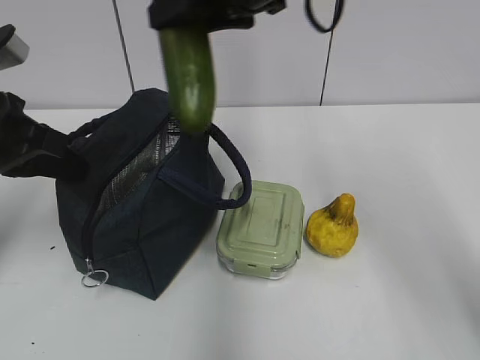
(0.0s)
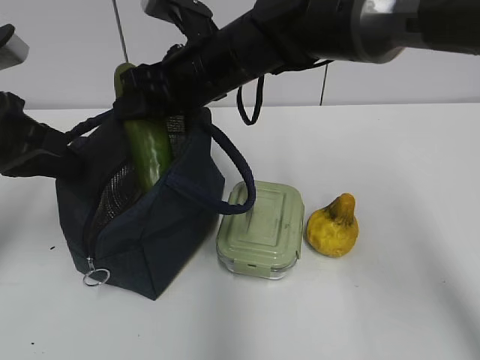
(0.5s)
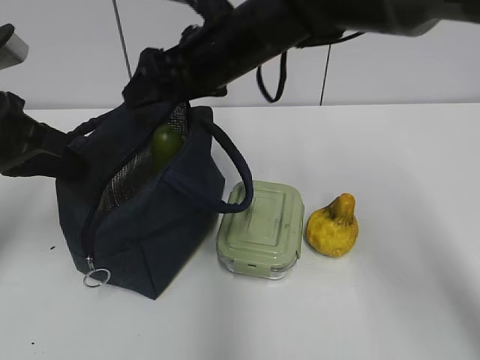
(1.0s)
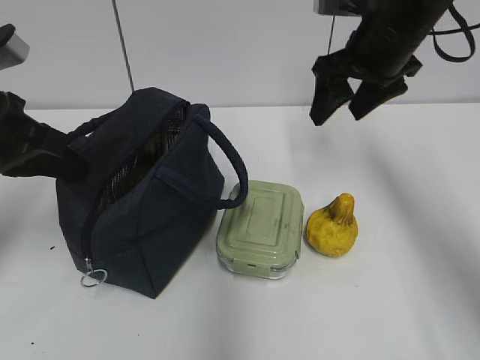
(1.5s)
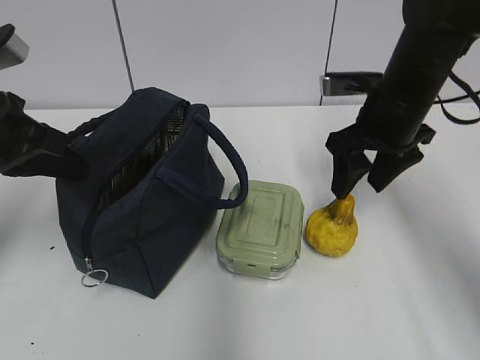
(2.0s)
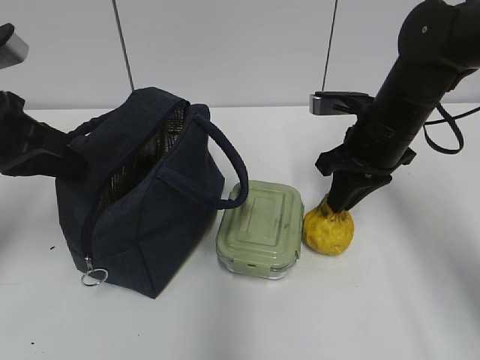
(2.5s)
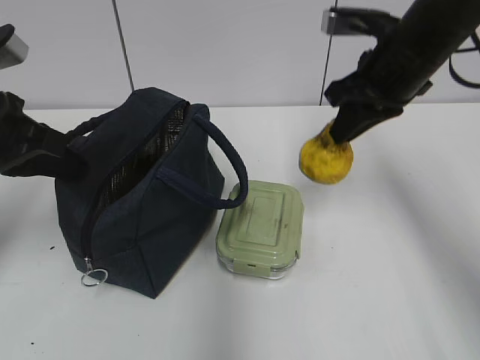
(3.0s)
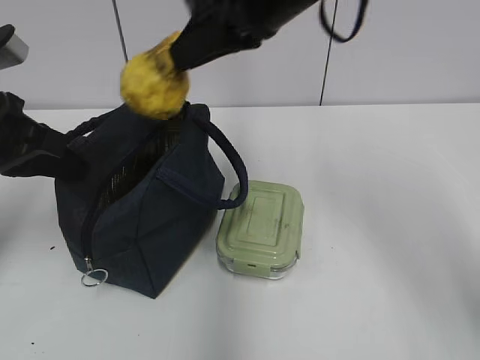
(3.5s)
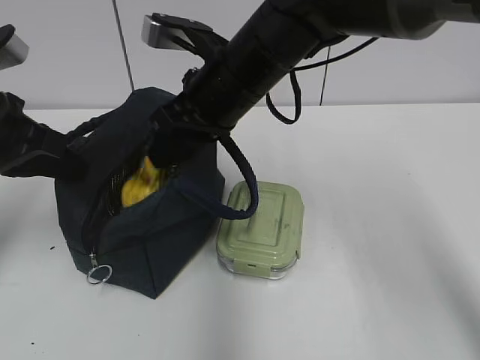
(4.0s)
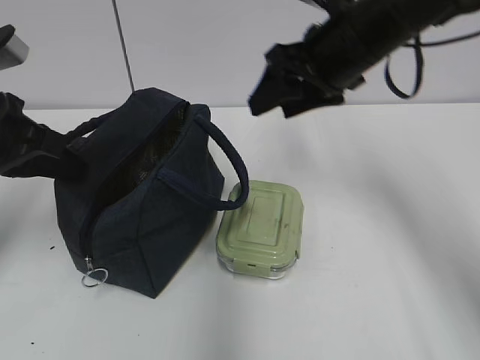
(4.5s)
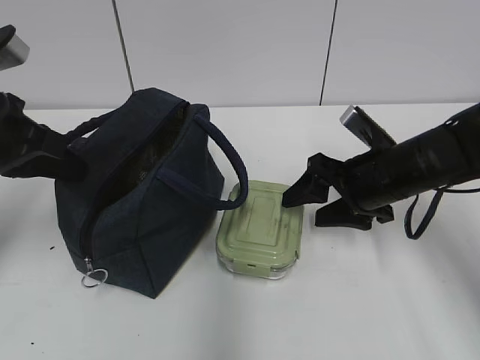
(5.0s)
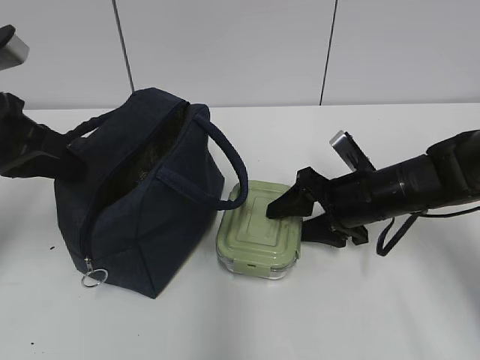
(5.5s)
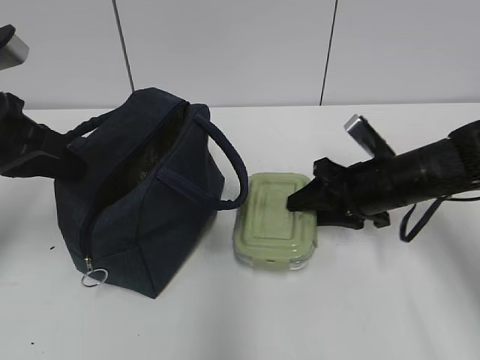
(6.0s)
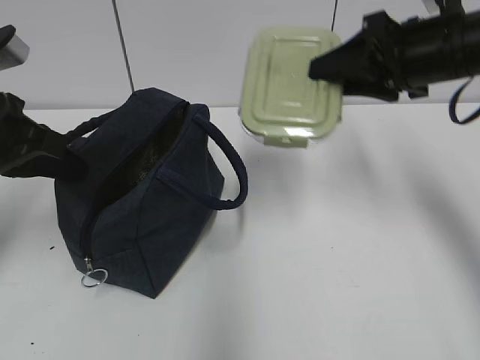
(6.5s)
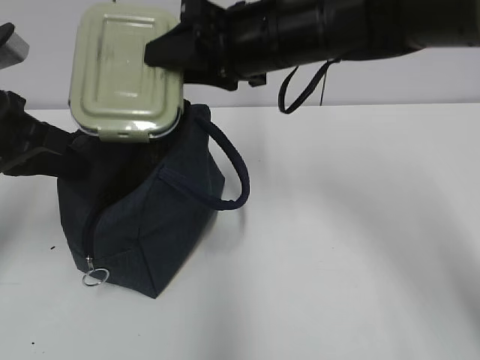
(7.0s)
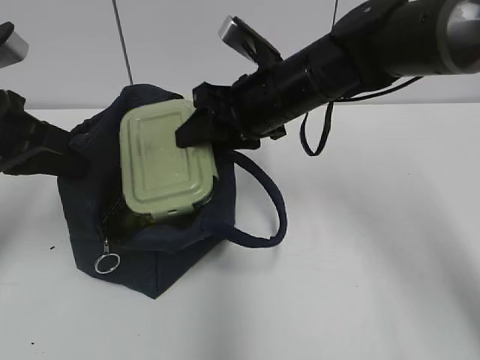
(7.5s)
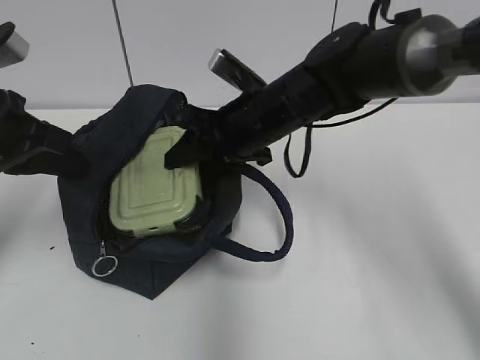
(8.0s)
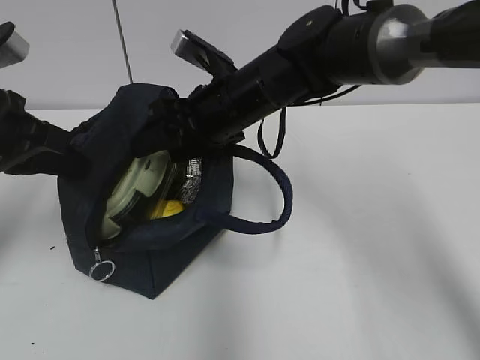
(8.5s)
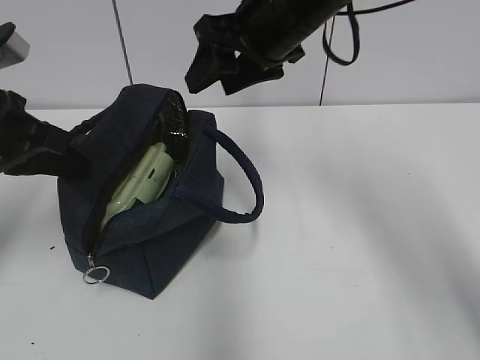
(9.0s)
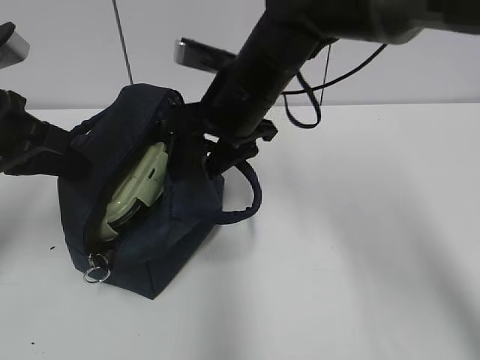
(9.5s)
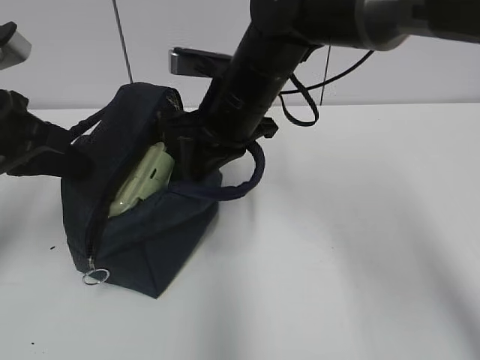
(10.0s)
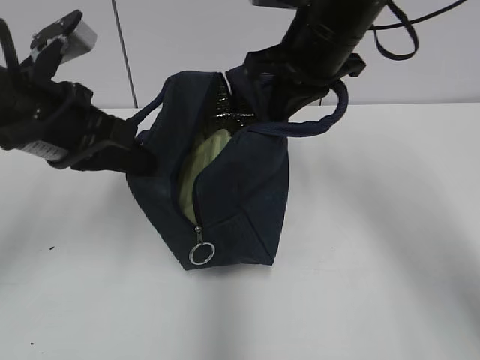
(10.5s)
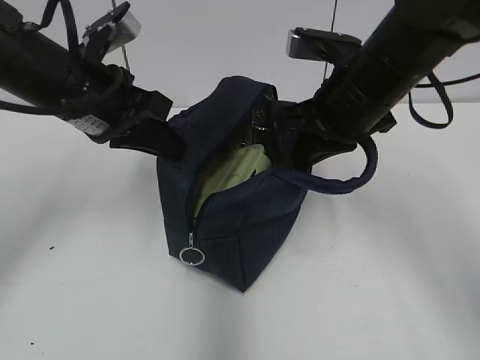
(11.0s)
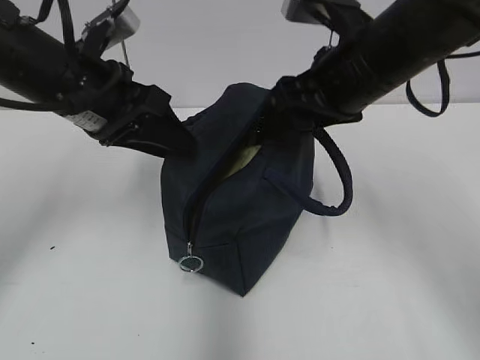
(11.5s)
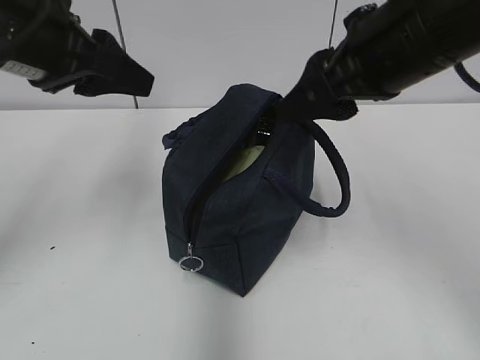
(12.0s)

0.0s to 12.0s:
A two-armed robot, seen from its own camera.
Step, 1.0s to 2.5s: Grab the pear with your right hand.
Step, 3.0s to 4.0s: Place it into the bag with your right hand.
Step, 4.5s to 5.5s: Grab the lunch box with your right hand.
Step, 9.0s to 9.5s: Grab the lunch bag with your right hand.
Step, 10.0s to 11.0s: Move the lunch bag to the right.
0.0s to 2.0s: The right gripper heads to the right and downward, covering some 20 cm.
2.0s to 4.0s: The right gripper is displaced to the left by roughly 15 cm, and closes its fingers.
4.0s to 6.0s: The right gripper goes approximately 20 cm to the right and downward, and opens and closes again.
6.0s to 8.0s: The right gripper is displaced to the left and upward by about 15 cm.
8.0s to 10.0s: The right gripper reaches approximately 10 cm upward, then returns, and closes up.
10.0s to 12.0s: The right gripper shifts some 20 cm to the right, backward and upward, and opens its fingers, while the left gripper goes roughly 10 cm upward and to the right, and opens up.

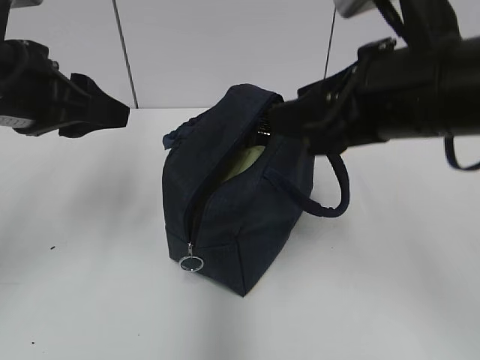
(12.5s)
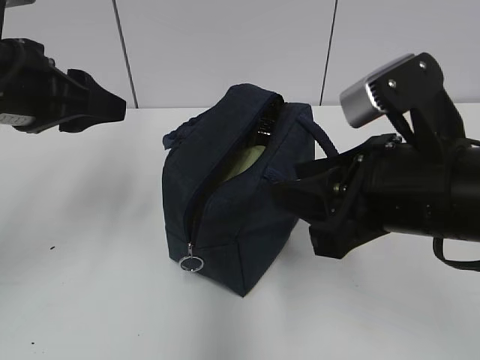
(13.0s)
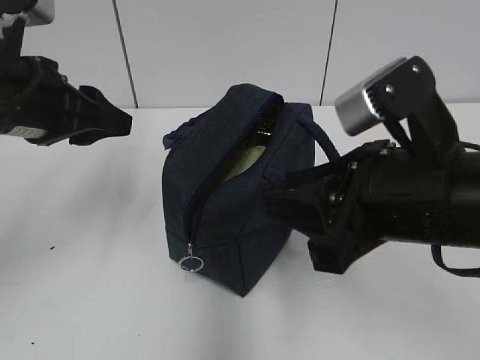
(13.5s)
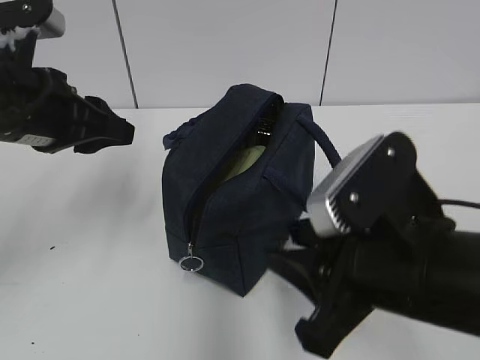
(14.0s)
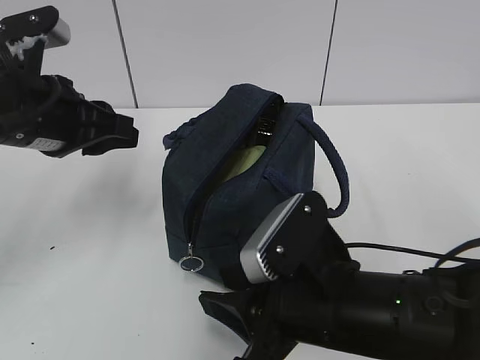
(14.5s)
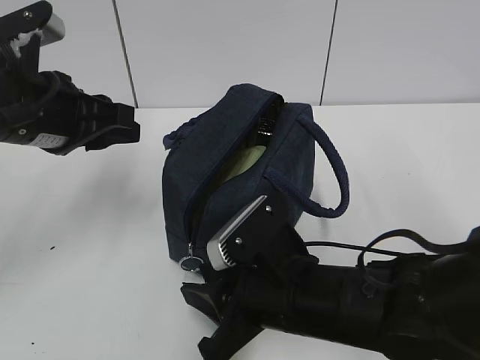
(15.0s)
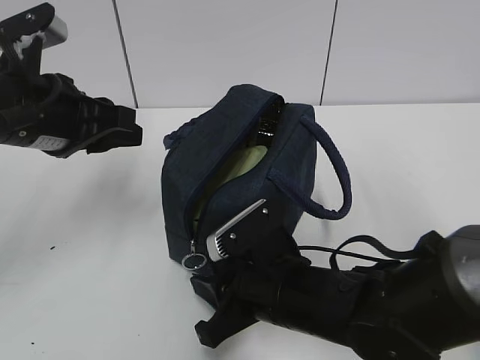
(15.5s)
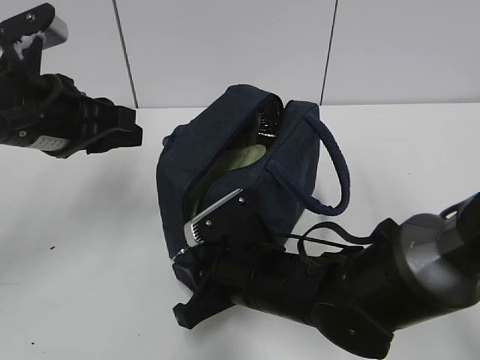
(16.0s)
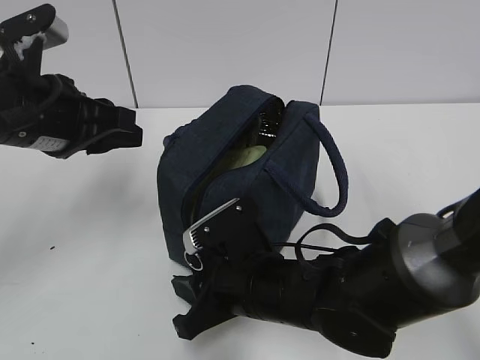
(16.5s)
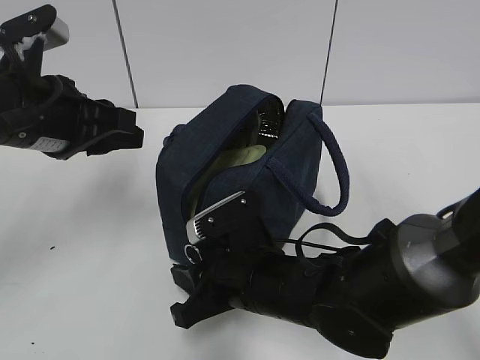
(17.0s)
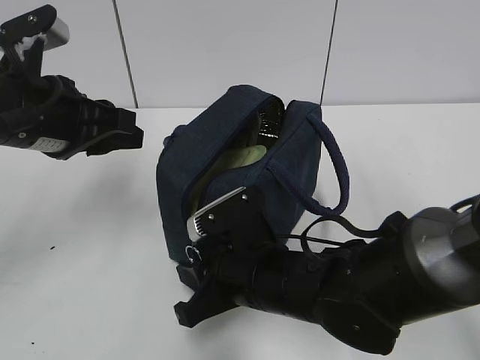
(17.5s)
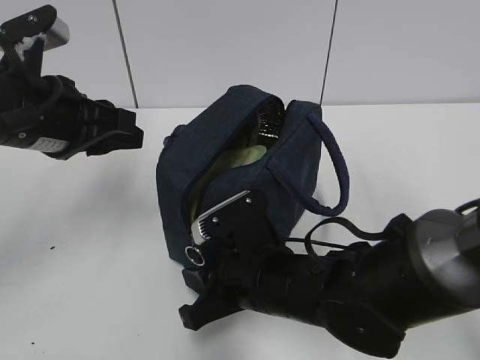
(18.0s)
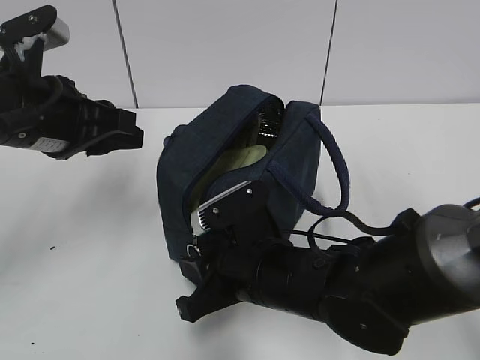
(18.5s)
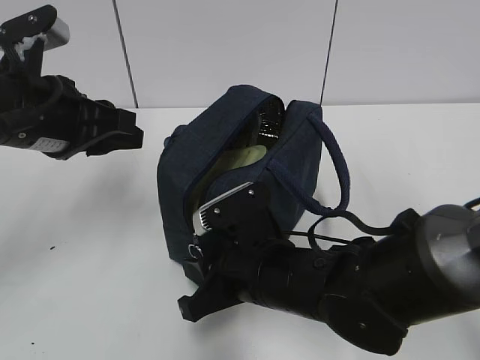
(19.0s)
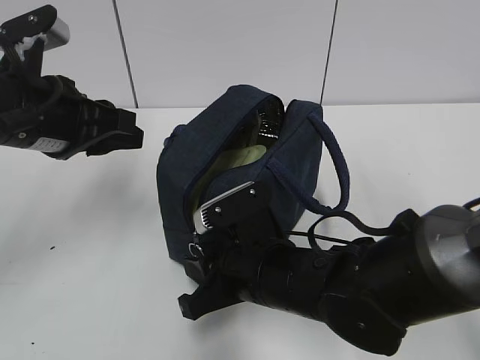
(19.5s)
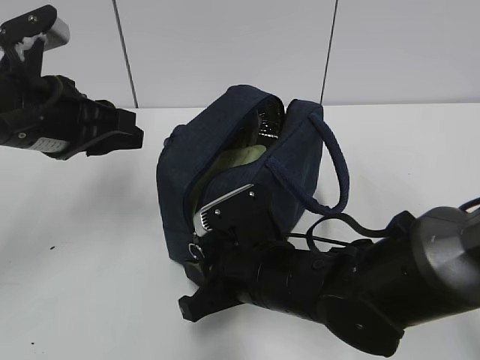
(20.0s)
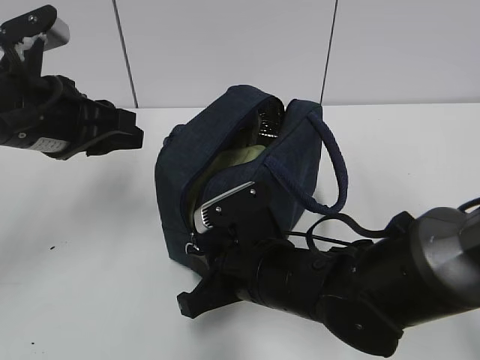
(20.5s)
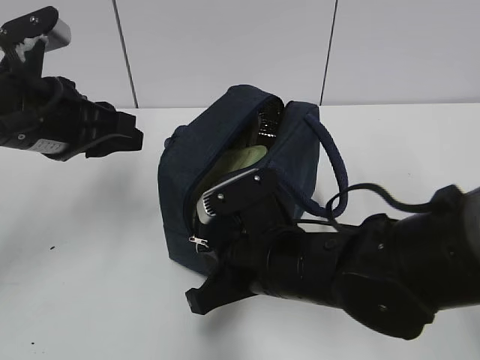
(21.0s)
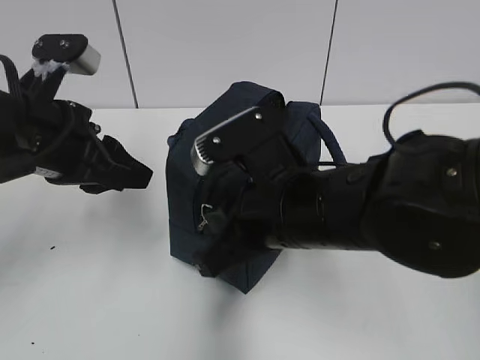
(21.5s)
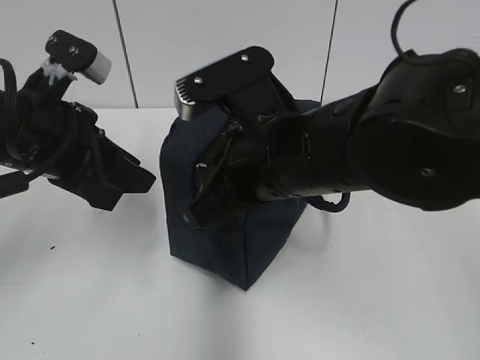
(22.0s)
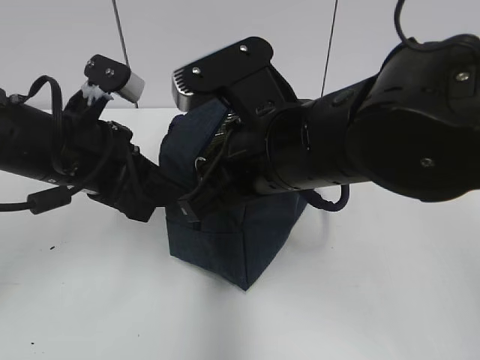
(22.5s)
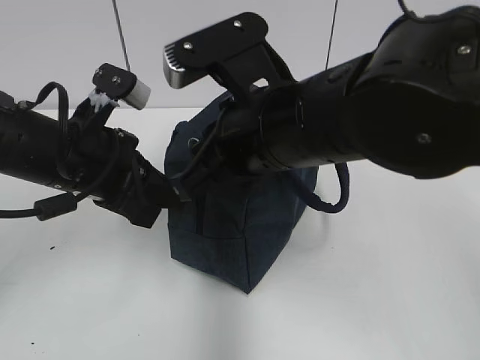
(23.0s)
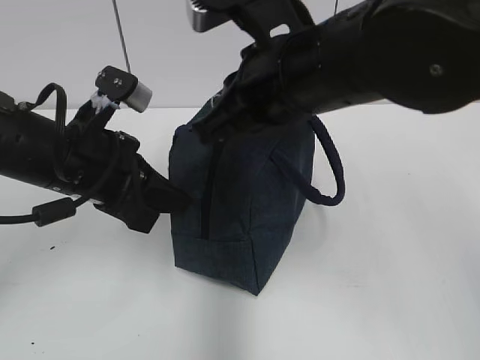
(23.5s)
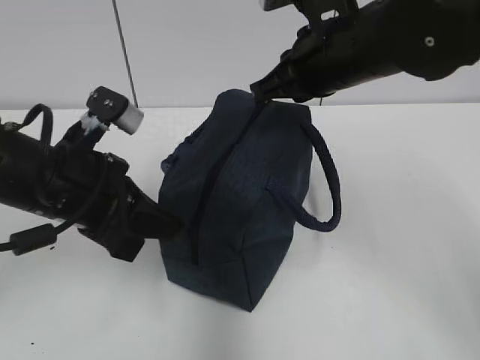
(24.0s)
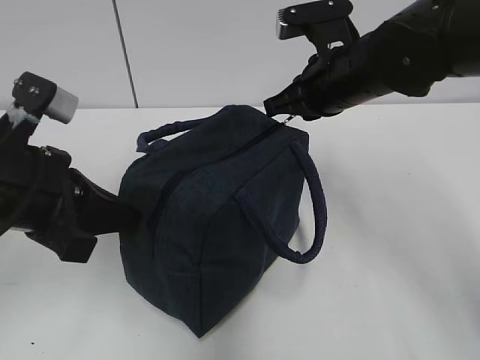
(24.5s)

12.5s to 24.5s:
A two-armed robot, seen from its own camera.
Step, 12.5s to 22.5s: Grab the lunch bag with your left hand.
12.5s to 14.5s: The right gripper is displaced downward by about 15 cm.
14.5s to 16.5s: The right gripper moves downward and forward, about 10 cm.
16.5s to 18.5s: There are only small adjustments of the grippers.
18.5s to 20.5s: The right gripper closes.
20.5s to 22.5s: The right gripper shifts about 15 cm upward.
22.5s to 24.5s: The left gripper shifts some 5 cm backward, and closes up. Meanwhile the right gripper shifts approximately 15 cm forward and to the right.

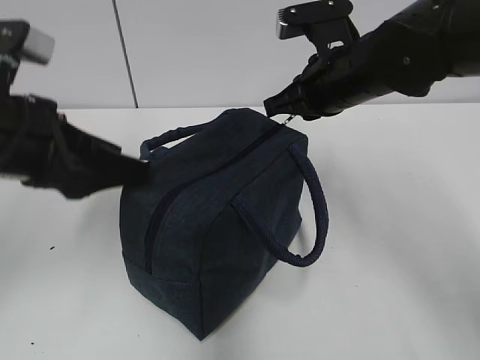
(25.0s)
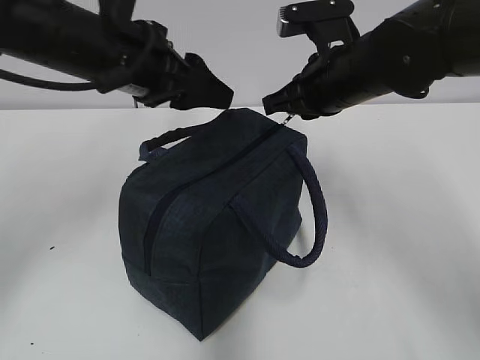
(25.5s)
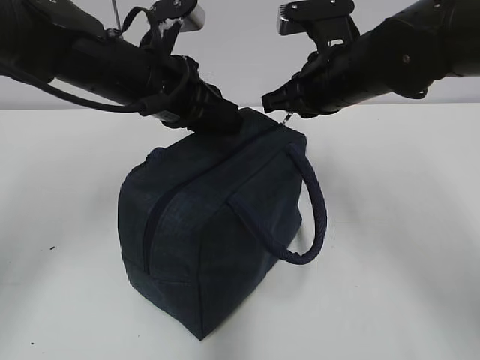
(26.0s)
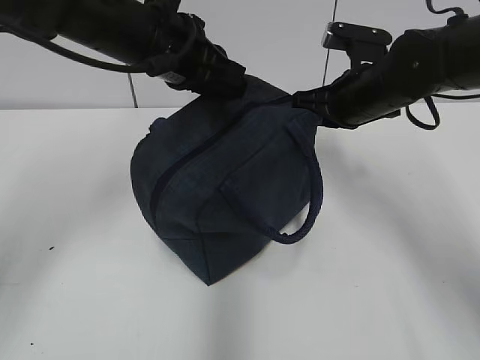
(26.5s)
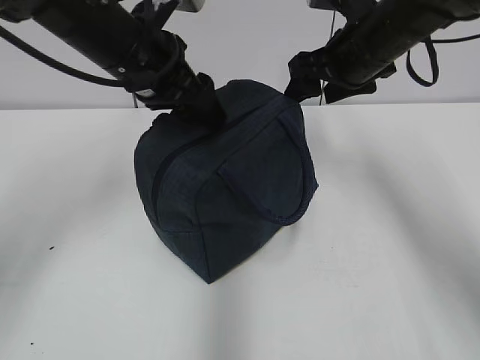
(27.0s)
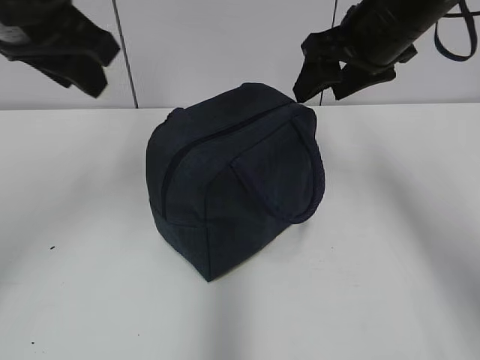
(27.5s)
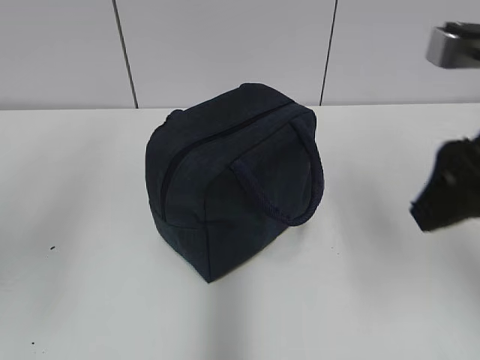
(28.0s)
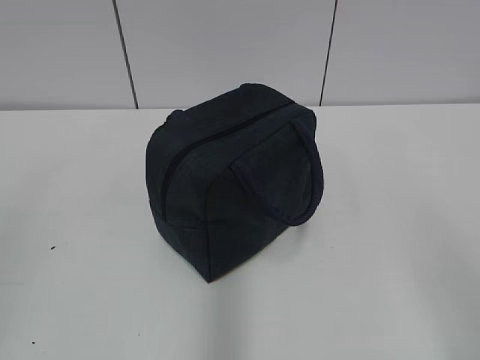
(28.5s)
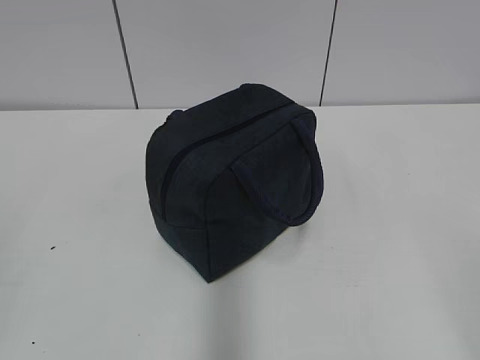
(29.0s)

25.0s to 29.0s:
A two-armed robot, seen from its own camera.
25.0s to 27.0s: The left gripper heads forward and to the right, covering approximately 15 cm, and closes and opens again, while the right gripper moves approximately 5 cm, and opens up.
27.0s to 29.0s: The left gripper heads backward and to the left, covering some 40 cm, and closes its fingers. Meanwhile the right gripper is displaced backward by roughly 40 cm.
